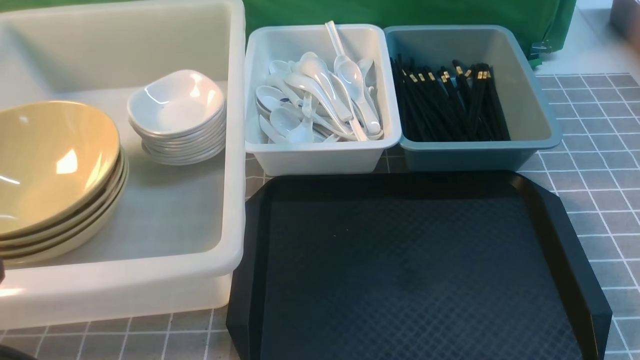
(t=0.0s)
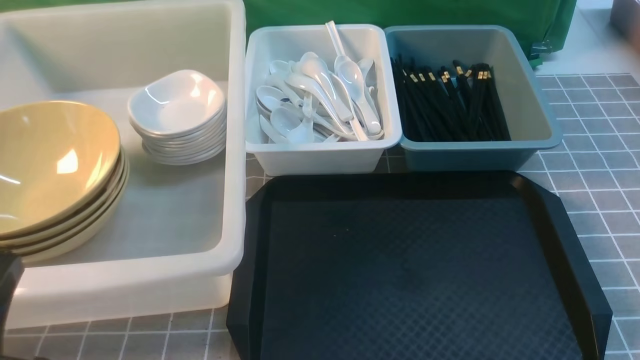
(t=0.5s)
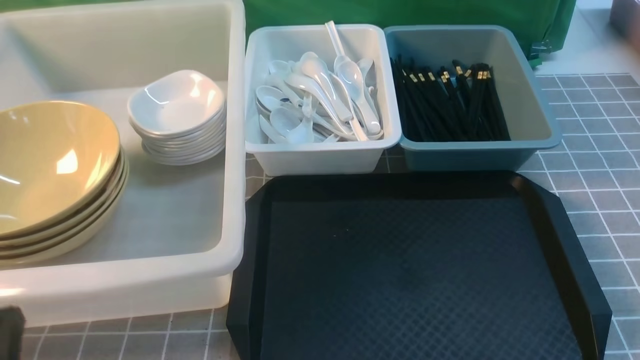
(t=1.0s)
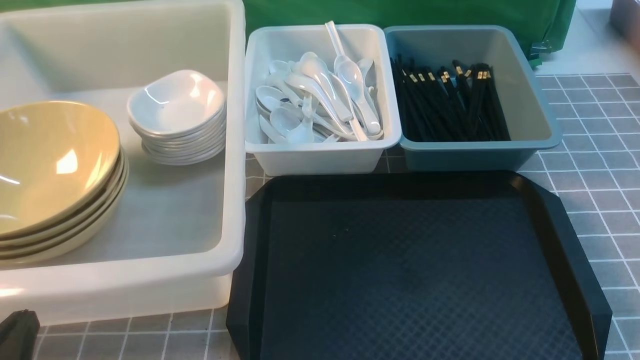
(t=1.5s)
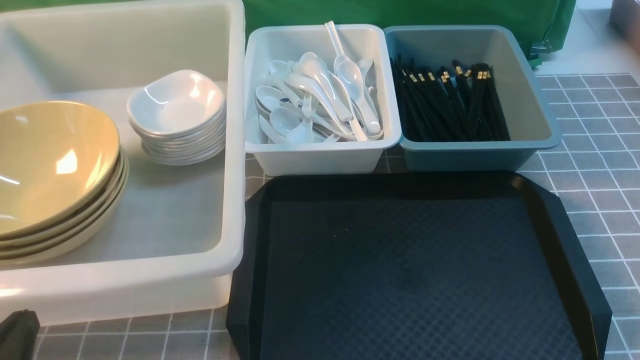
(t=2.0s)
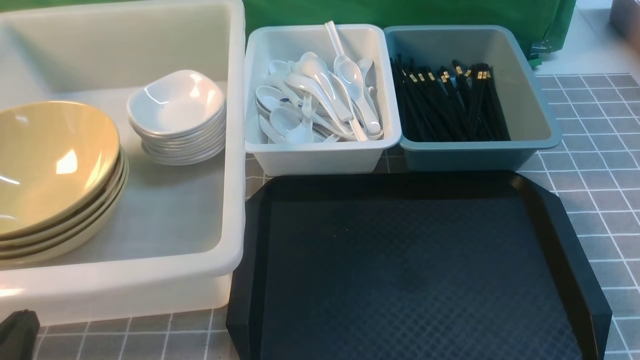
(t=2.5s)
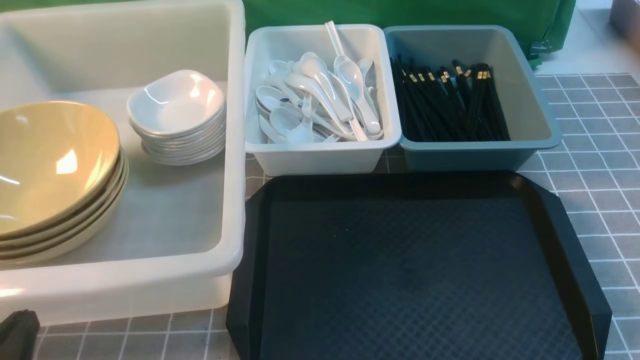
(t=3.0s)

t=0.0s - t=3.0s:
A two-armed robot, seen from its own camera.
Task of the whole recording: on grey table put chopsticks spoon bowls plates into blue grey white boxes.
t=0.0s - t=1.5s: The left gripper moves downward, approximately 10 cm.
t=1.5s - t=3.0s: Neither gripper changes place.

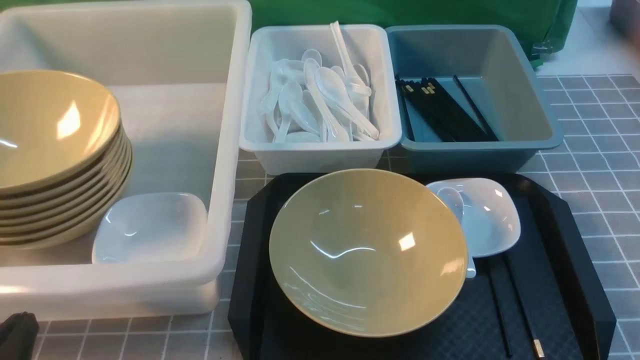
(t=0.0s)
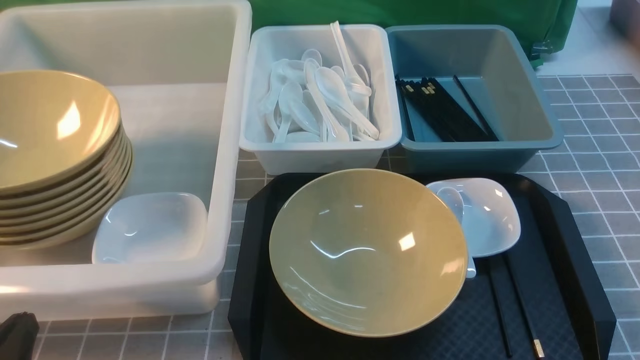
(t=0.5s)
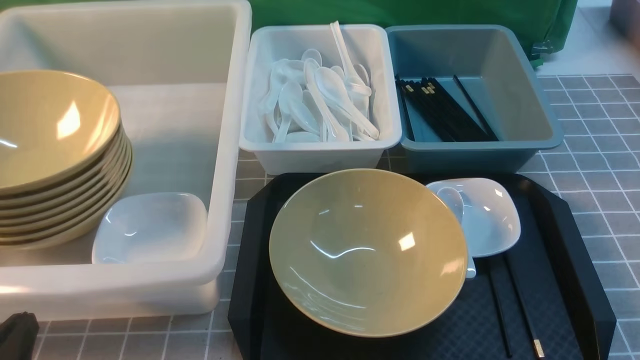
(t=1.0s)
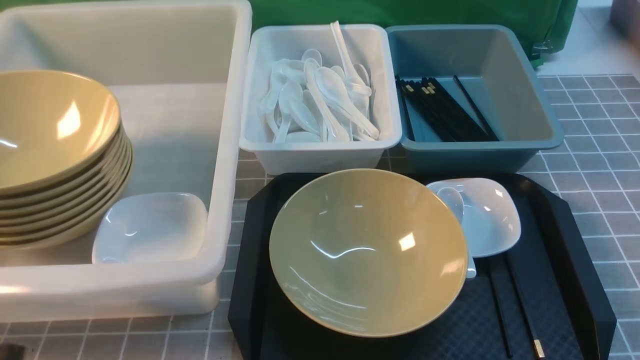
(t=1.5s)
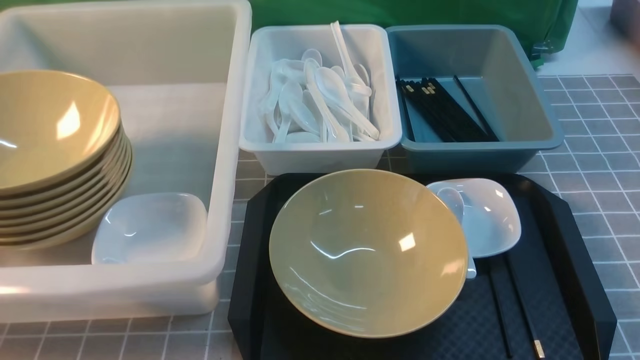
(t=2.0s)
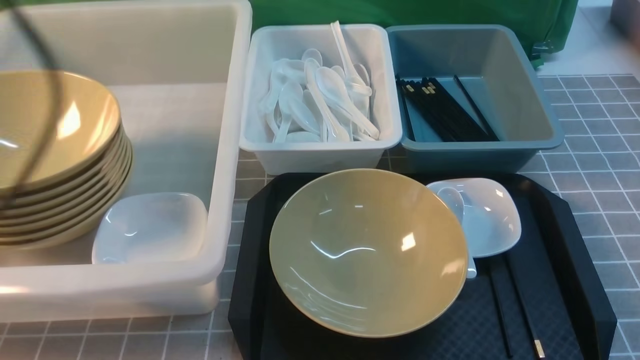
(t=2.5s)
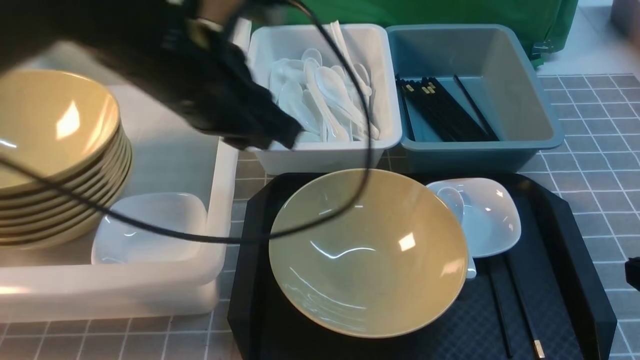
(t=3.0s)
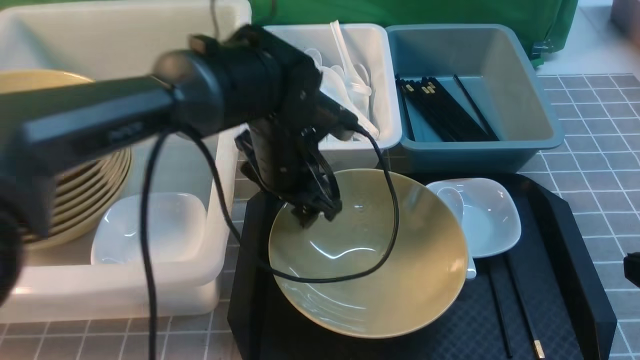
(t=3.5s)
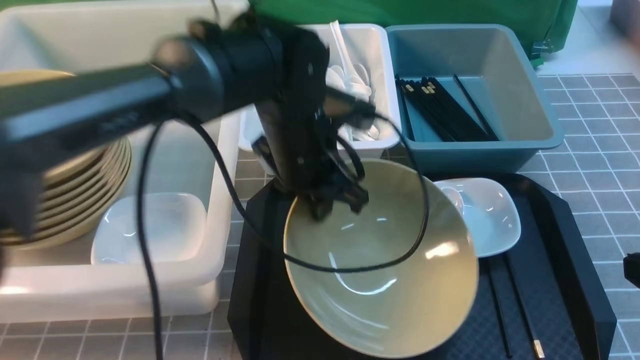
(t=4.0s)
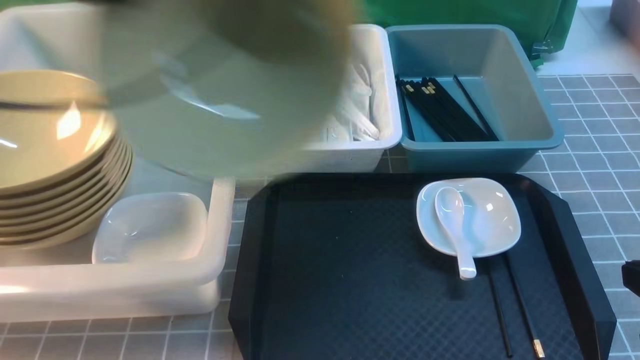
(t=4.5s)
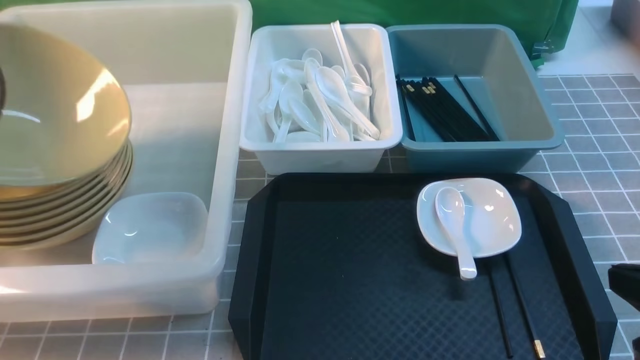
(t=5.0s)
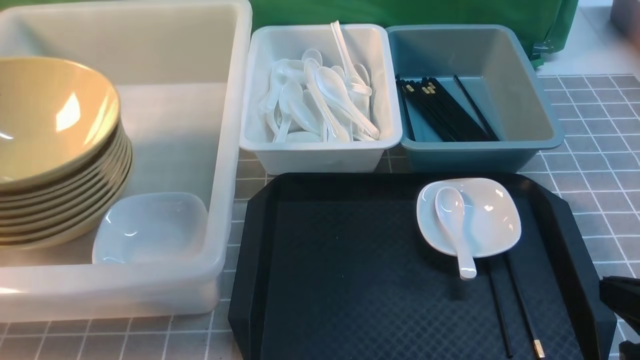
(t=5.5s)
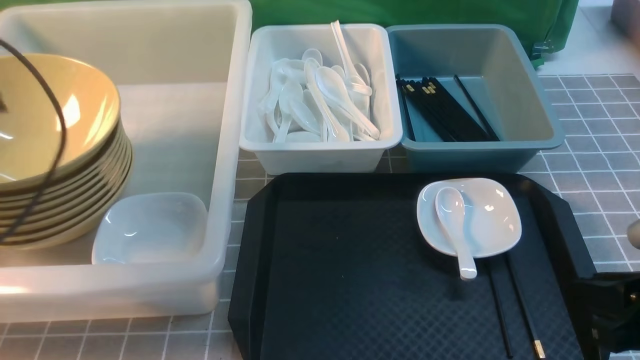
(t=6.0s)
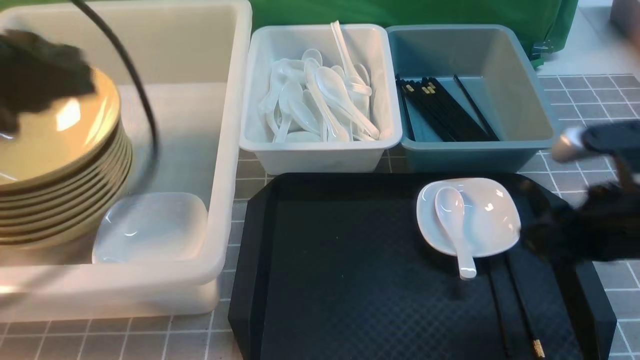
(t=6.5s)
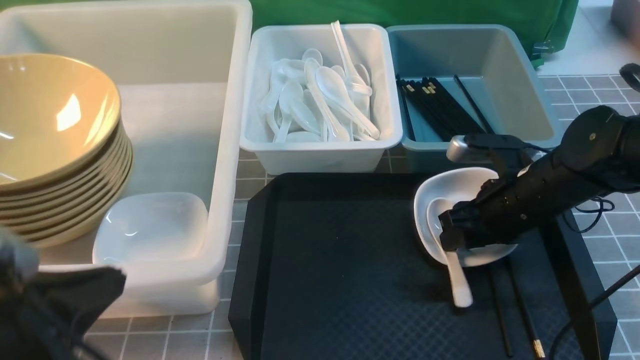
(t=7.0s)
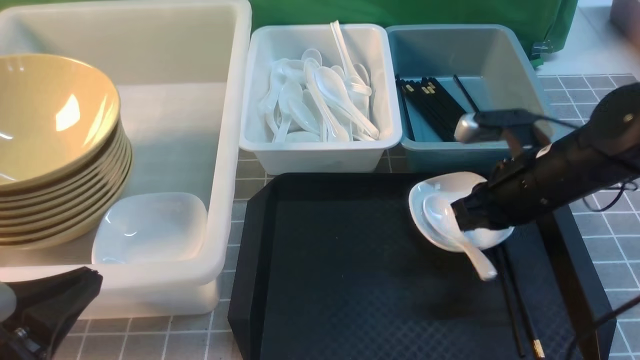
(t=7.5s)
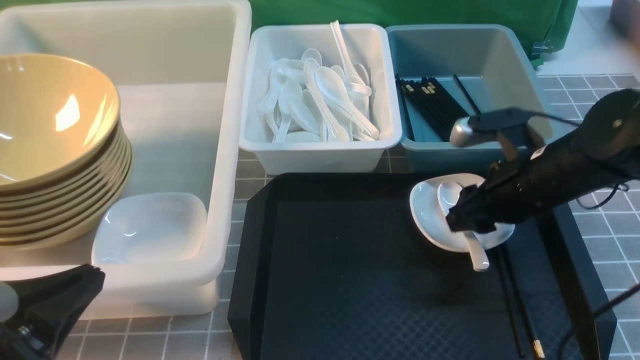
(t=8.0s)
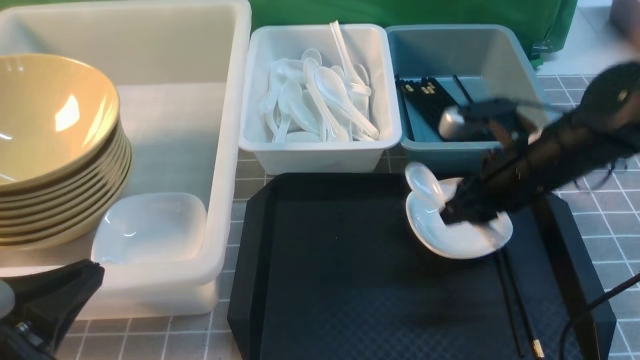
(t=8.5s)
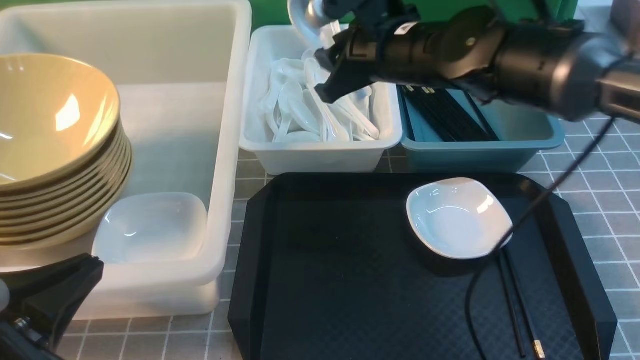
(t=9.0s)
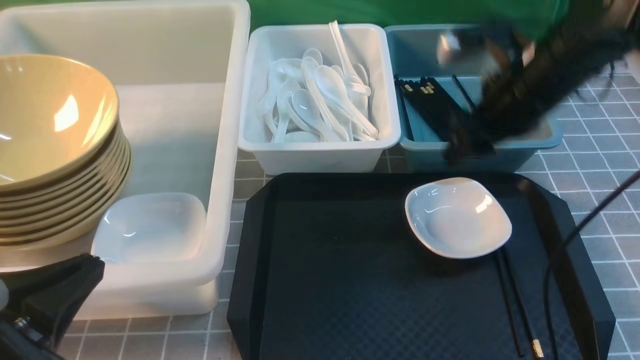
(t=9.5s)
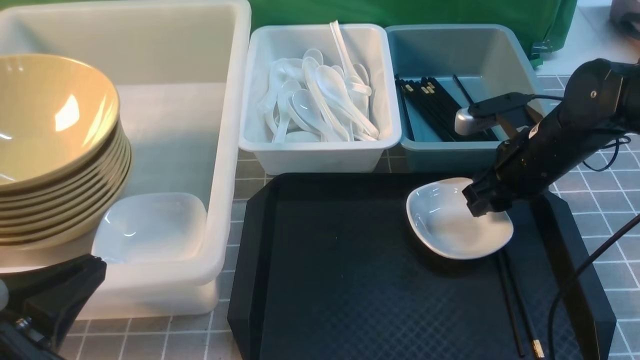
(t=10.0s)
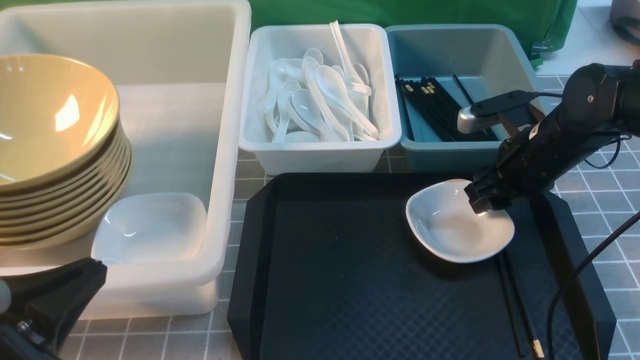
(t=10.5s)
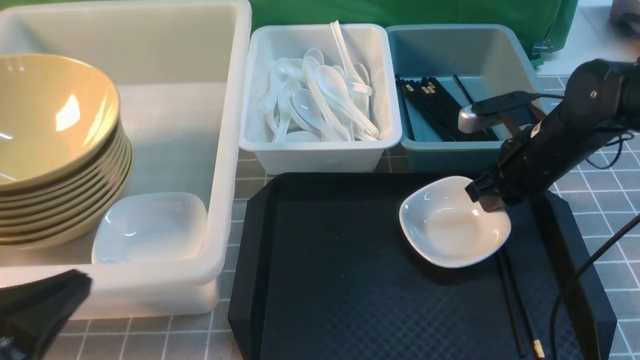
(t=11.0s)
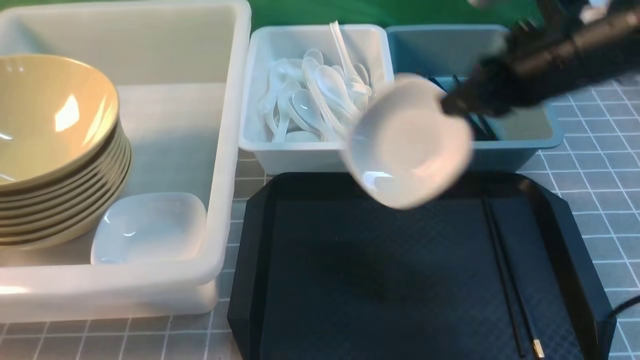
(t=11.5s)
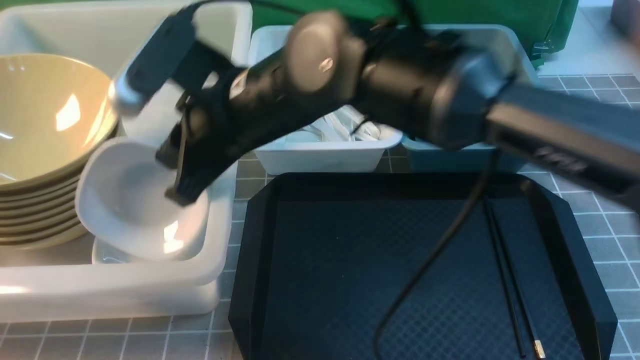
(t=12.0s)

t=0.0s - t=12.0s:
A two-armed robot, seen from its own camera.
Task of the whole recording: on grey table put chopsticks spoon bowls plates into blue grey white boxes.
Step, t=0.0s - t=4.0s: use the left arm to grab the yellow noodle bowl on the left.
Step, t=4.5s - t=5.5s: use the left arm to put the noodle bowl into the large storage box on the left.
Step, t=6.0s - t=8.0s: use the right arm to grab the soup spoon in the middle.
Step, t=8.5s - t=9.0s: use the right arm to put the soup spoon into the small storage box in the middle.
Step, t=9.5s - t=11.0s: use the right arm to grab the plate.
t=0.0s - t=2.0s: The left gripper goes roughly 15 cm upward.
t=2.0s - t=4.0s: The right gripper moves forward and downward, roughly 10 cm, while the left gripper heads forward and to the right, covering approximately 35 cm, and opens, then closes once more.
t=4.0s - t=6.0s: The right gripper opens its fingers, while the left gripper shifts approximately 30 cm to the left, and opens, then closes again.
t=6.0s - t=8.0s: The left gripper moves backward, to the right and downward, some 20 cm; the right gripper travels forward by approximately 20 cm, and closes, then opens again.
t=8.0s - t=10.0s: The right gripper moves approximately 10 cm to the left and comes back.
t=10.0s - t=12.0s: The right gripper travels to the left and upward by roughly 30 cm, and closes, while the left gripper ends up approximately 5 cm from where it was.

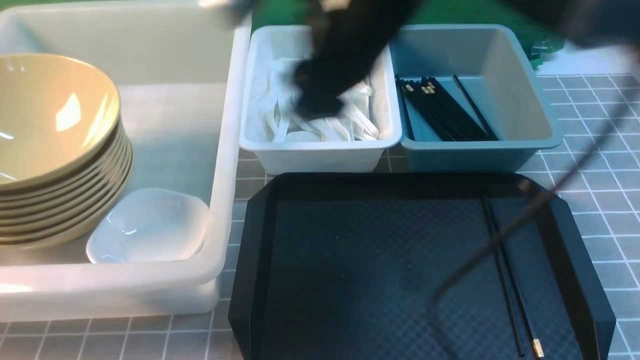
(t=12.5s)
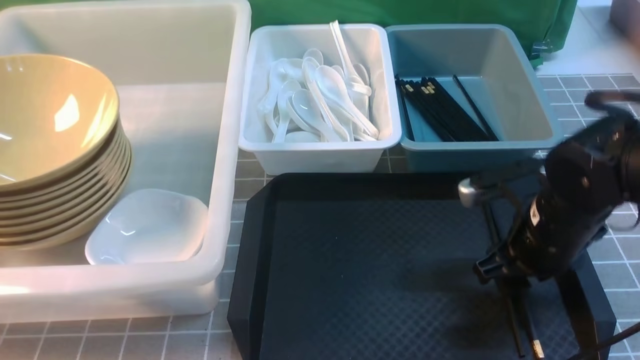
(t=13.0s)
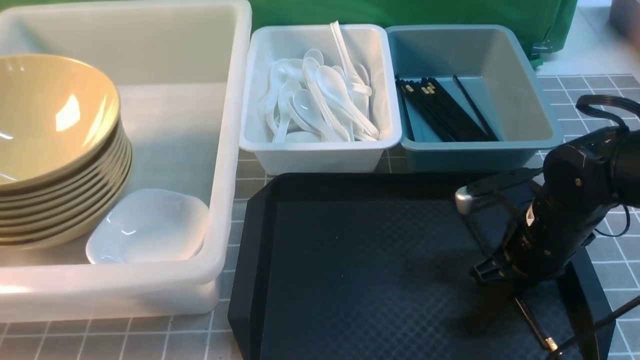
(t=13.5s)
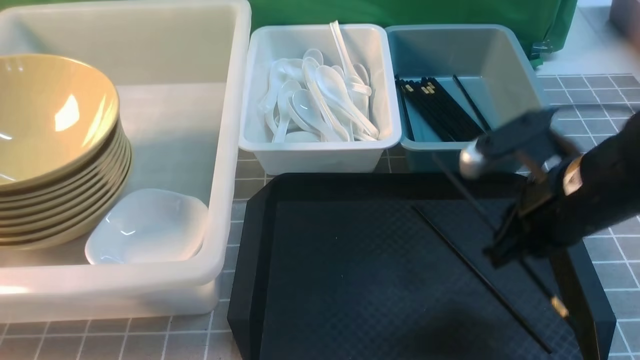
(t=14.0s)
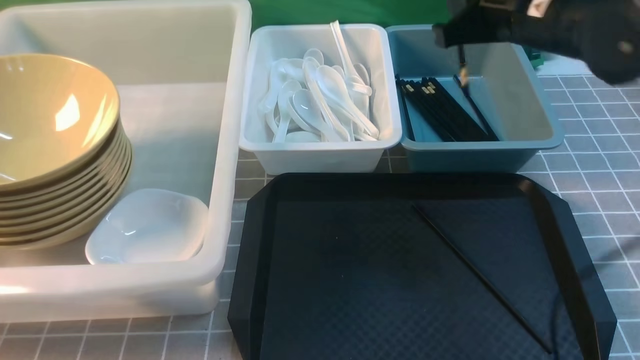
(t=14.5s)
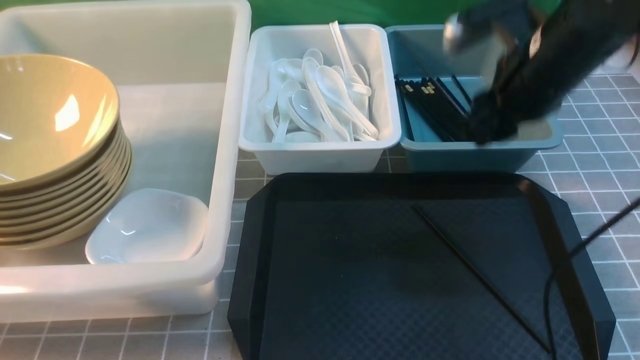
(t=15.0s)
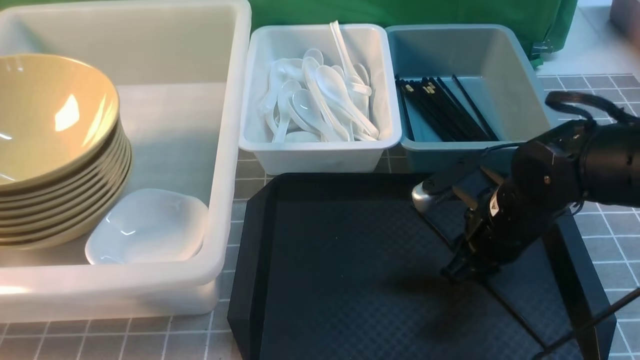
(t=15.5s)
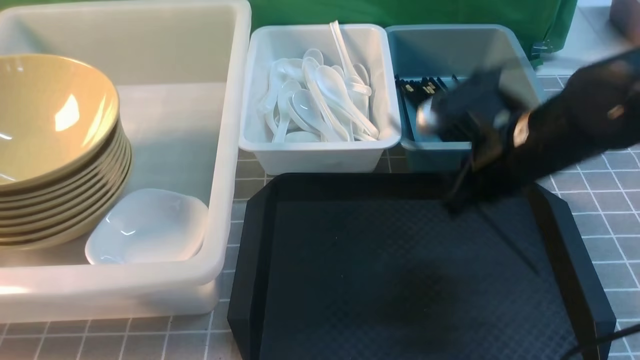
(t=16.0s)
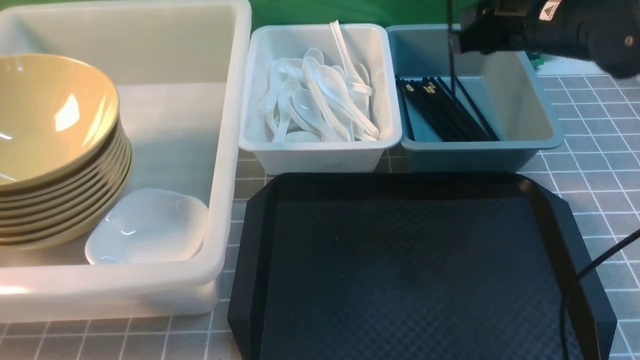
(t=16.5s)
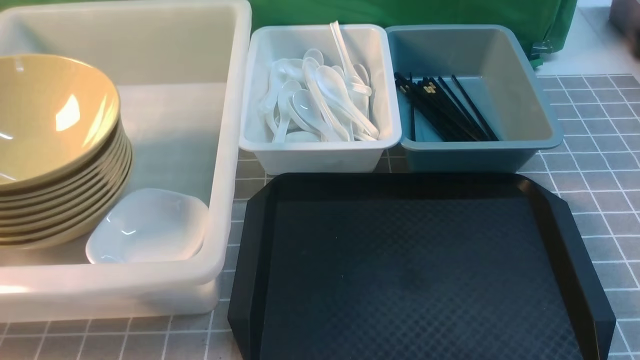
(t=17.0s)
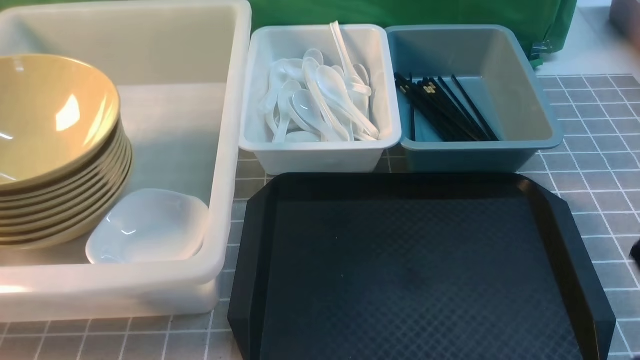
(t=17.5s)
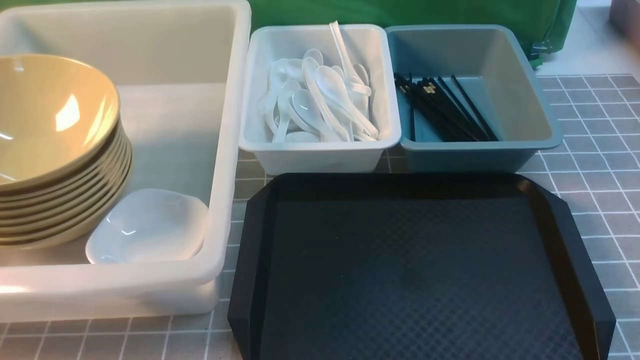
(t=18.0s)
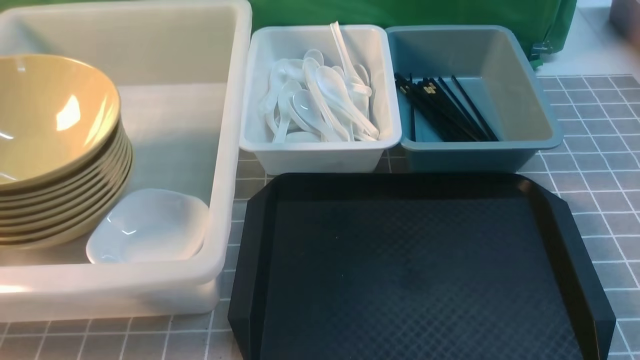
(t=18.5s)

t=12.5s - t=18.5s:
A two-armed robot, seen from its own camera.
Task of the whole recording: on grey table put chopsticks spoon bowls plates into blue grey white boxes.
Step, t=12.5s - t=14.0s: use the right arm to grab a chopstick.
Step, t=14.5s - t=15.0s: use the right arm to put a chopstick into the small storage box on the right.
Step, t=15.5s - t=16.0s: use the right arm to grab a chopstick.
t=12.5s - t=14.5s: The right gripper is displaced to the right and forward by some 15 cm, moves approximately 20 cm downward and comes back, and closes.
t=14.5s - t=16.5s: The right gripper travels downward and back again, about 15 cm each way.
t=16.5s - t=18.5s: The right gripper is displaced backward and downward by approximately 35 cm, and closes its fingers.
